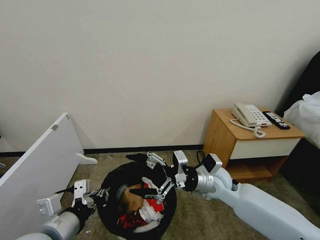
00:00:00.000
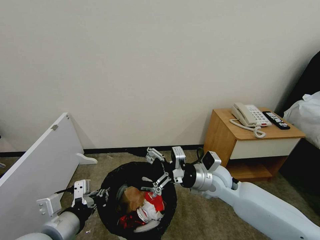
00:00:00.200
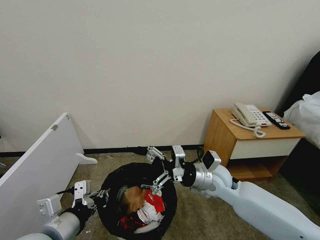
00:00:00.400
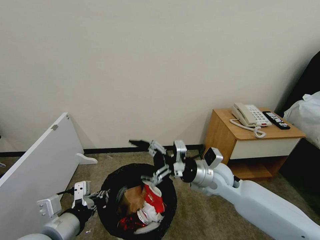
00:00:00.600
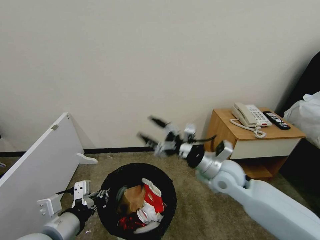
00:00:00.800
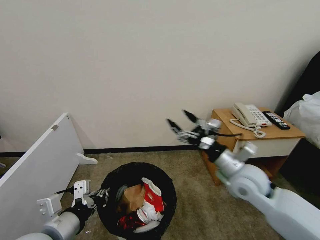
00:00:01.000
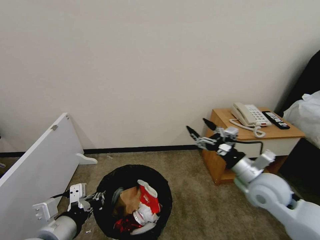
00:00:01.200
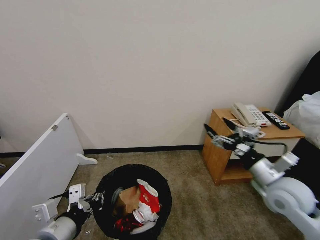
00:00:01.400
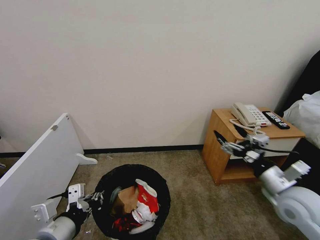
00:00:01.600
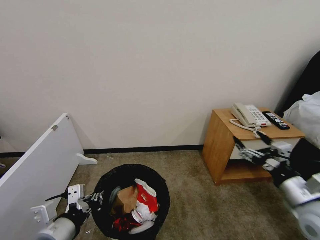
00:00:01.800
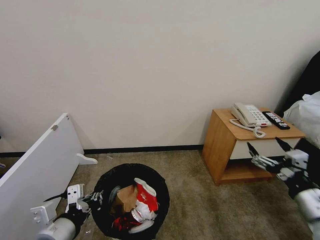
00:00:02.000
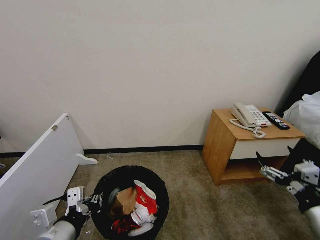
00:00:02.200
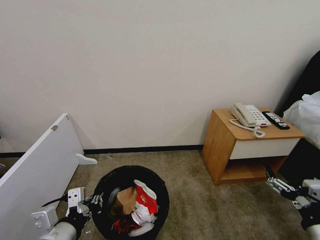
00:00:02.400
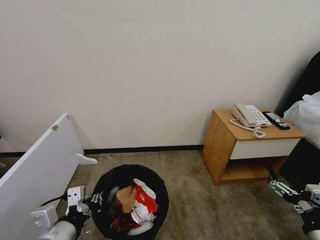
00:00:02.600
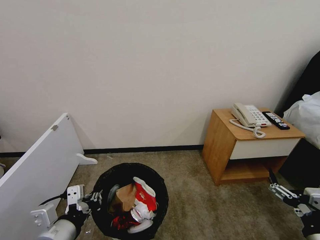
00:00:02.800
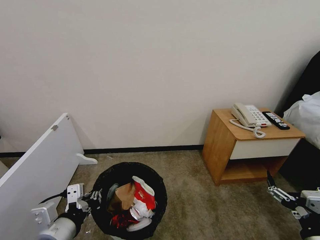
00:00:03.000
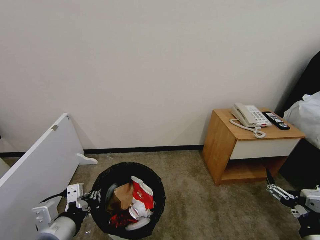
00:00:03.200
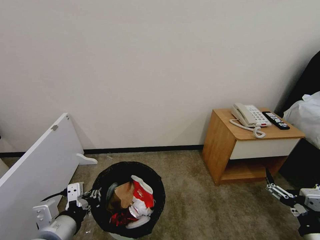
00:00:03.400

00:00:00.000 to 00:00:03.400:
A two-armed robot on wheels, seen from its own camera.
Task of the whole recording: Pick up the trash bin, then pick up the garbage from the floor and place it into the trash bin.
00:00:00.000 to 00:00:01.600: The right gripper travels to the right and backward by some 20 cm.
00:00:01.600 to 00:00:03.400: The right gripper shifts approximately 15 cm backward.
